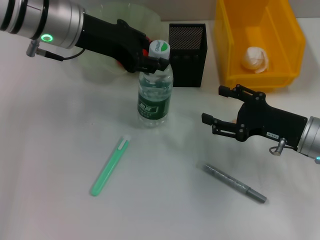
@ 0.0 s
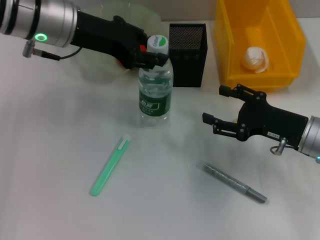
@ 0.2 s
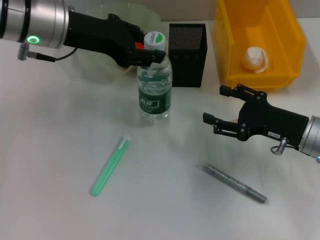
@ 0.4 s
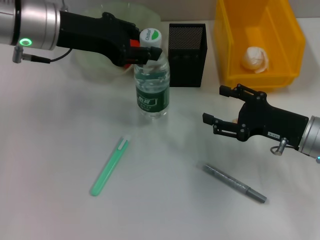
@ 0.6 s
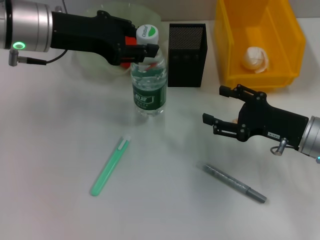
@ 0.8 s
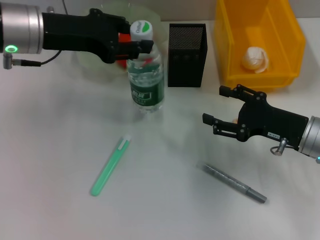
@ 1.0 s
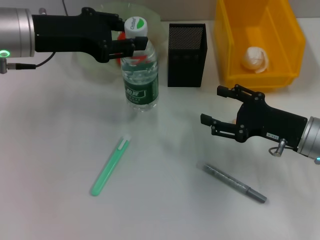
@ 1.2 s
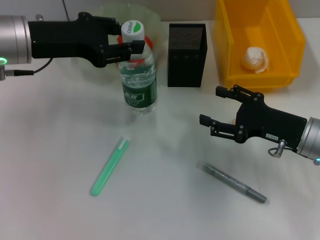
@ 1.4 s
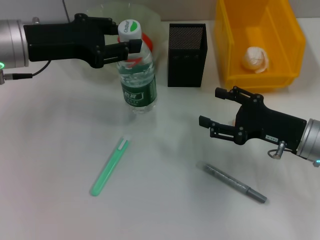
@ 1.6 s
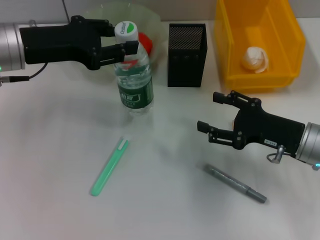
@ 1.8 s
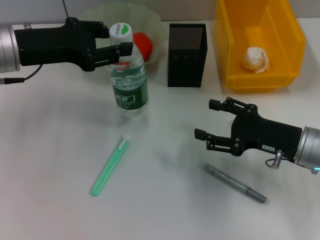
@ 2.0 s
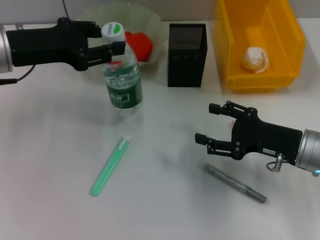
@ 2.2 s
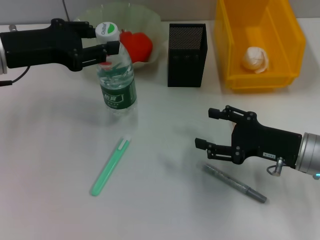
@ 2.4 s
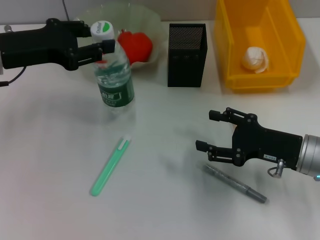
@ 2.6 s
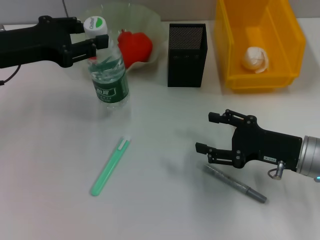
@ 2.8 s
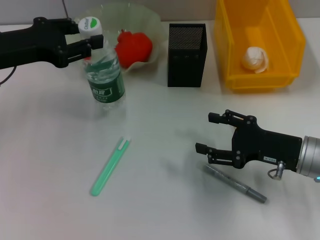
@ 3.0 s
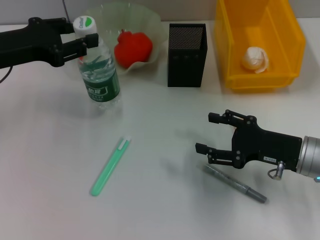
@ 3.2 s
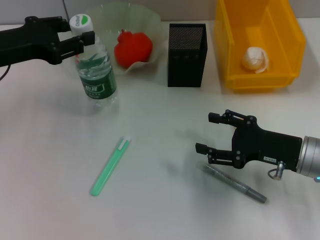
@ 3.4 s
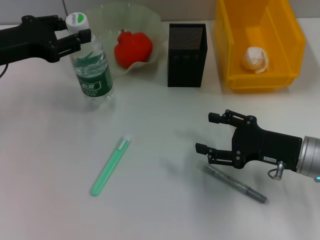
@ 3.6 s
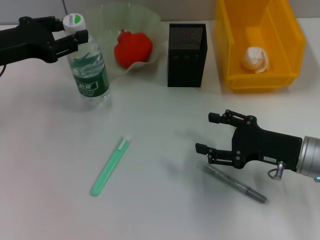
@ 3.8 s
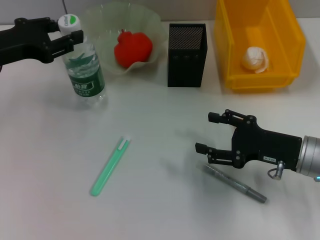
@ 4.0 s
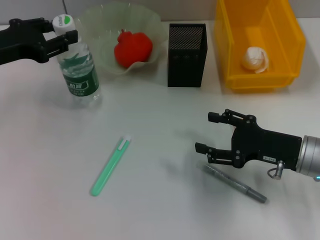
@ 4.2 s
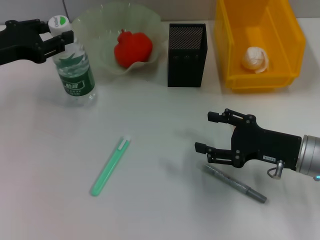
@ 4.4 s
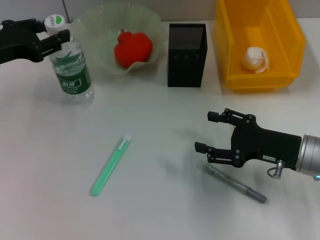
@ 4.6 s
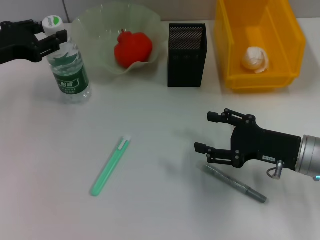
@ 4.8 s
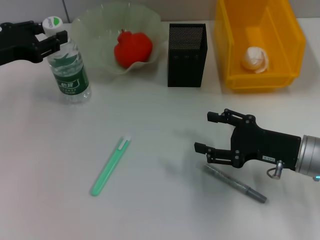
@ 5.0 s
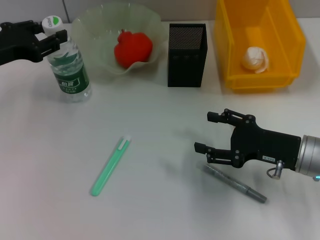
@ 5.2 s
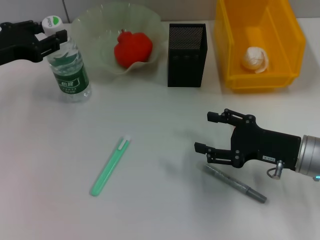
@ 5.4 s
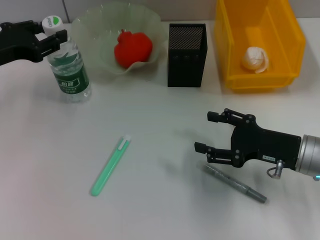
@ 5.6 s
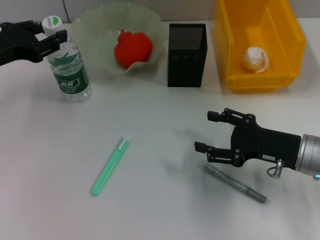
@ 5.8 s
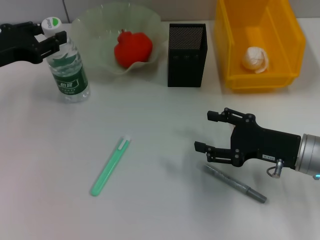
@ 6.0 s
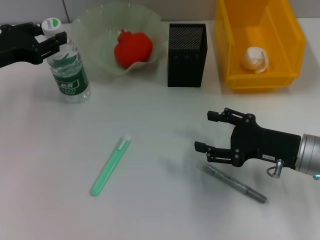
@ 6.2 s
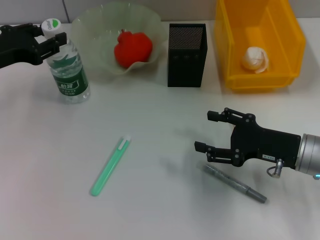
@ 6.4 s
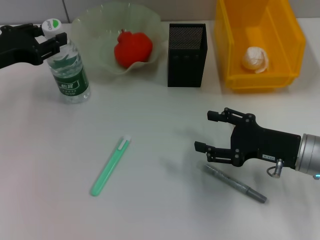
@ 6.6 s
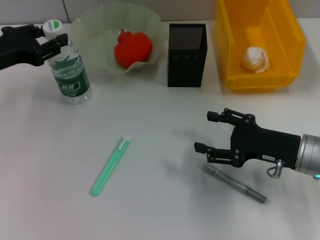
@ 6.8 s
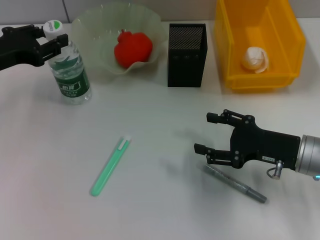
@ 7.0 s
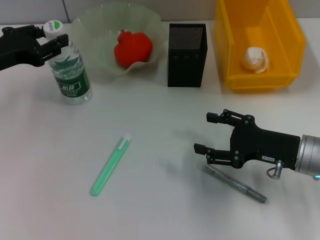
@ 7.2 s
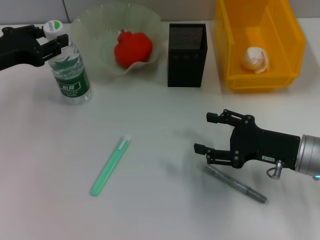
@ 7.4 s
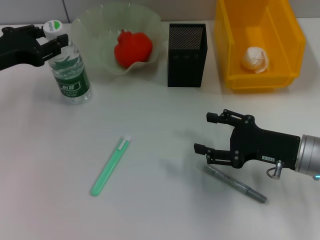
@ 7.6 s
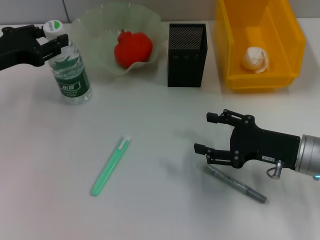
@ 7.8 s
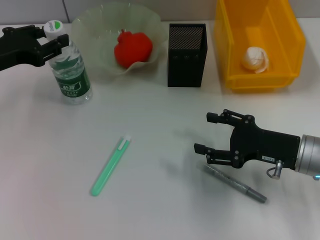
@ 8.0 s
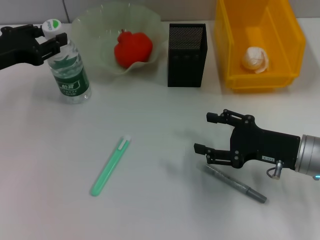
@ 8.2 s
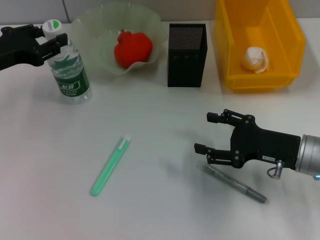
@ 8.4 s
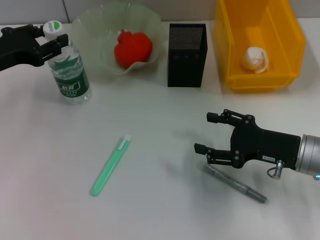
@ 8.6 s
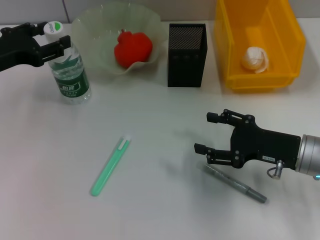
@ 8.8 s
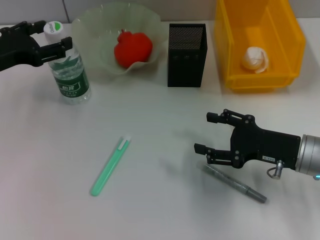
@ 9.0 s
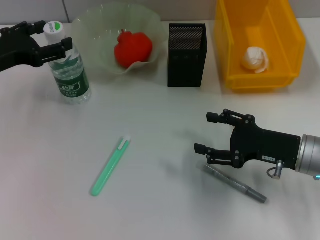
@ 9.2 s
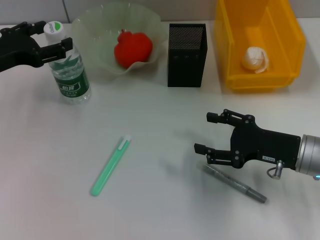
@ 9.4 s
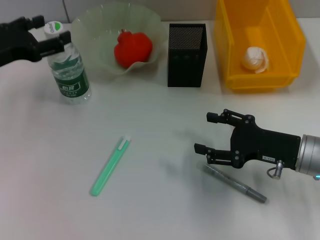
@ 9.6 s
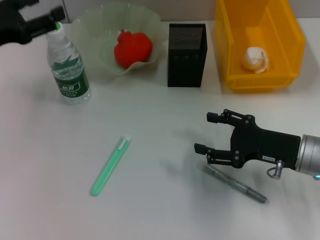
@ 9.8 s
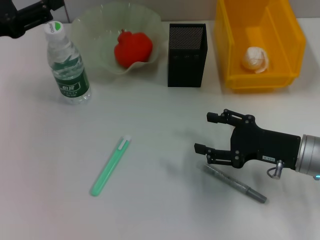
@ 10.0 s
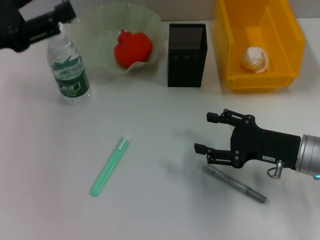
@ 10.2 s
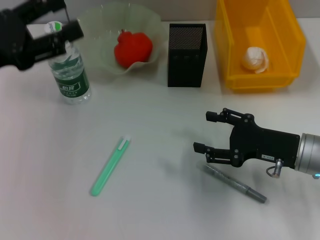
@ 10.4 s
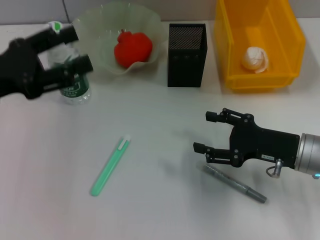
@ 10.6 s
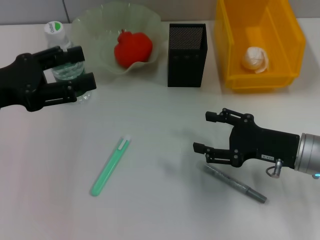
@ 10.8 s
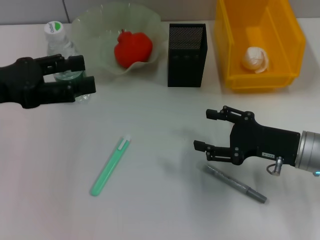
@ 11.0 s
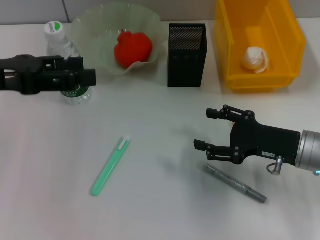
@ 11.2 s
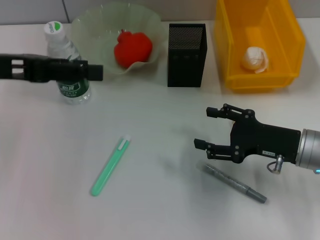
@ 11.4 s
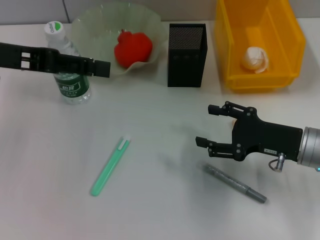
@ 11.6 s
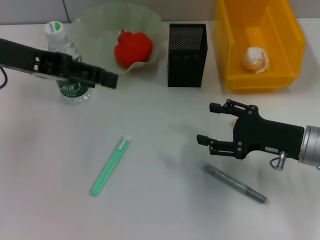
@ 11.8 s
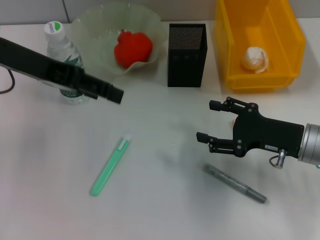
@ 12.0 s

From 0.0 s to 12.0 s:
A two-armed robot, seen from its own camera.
Step, from 0.0 s to 10.0 s: Place the water bottle on the table with the left hand.
From 0.0 s to 1.6 s: The left gripper travels to the left by approximately 5 cm.
From 1.6 s to 3.0 s: The left gripper ends up about 5 cm from where it was.
From 3.0 s to 4.4 s: The grippers make only small movements.
From 4.4 s to 6.0 s: Both grippers stay about where they are.
From 6.0 s to 7.6 s: Neither gripper changes place.
From 7.6 s to 9.0 s: The left gripper opens up.
From 9.0 s to 10.4 s: The left gripper shifts approximately 5 cm backward.
From 10.4 s to 12.0 s: The left gripper is displaced upward and to the right by roughly 10 cm.

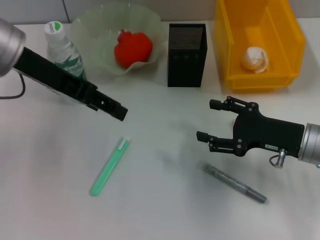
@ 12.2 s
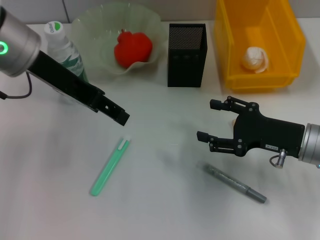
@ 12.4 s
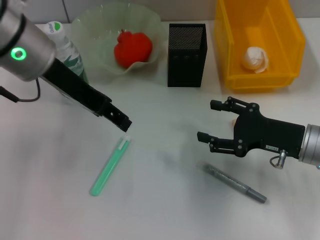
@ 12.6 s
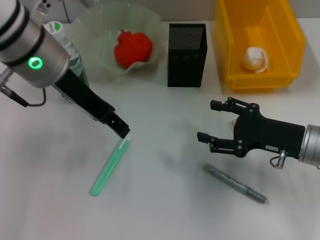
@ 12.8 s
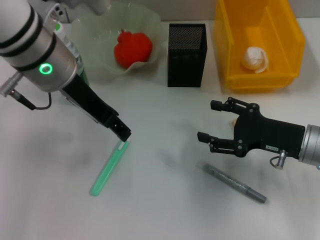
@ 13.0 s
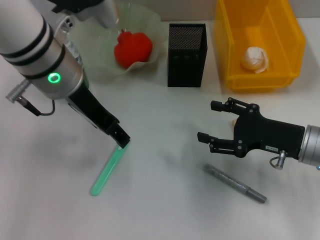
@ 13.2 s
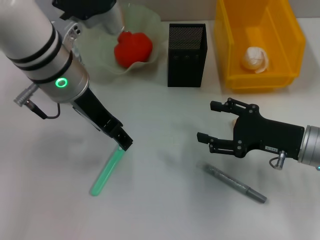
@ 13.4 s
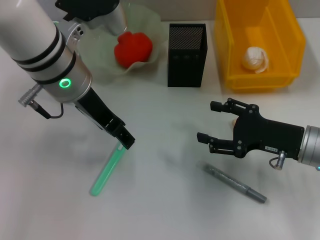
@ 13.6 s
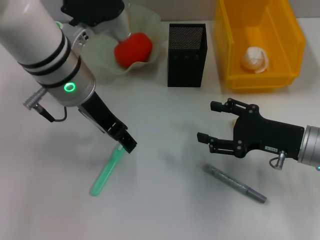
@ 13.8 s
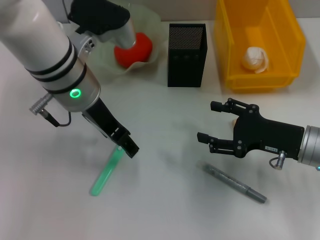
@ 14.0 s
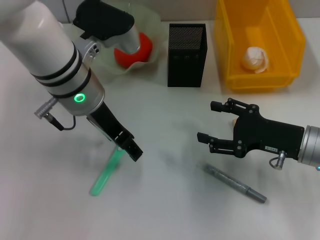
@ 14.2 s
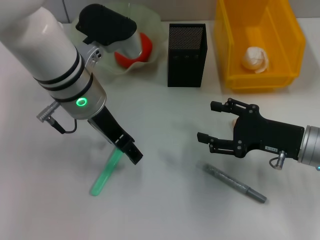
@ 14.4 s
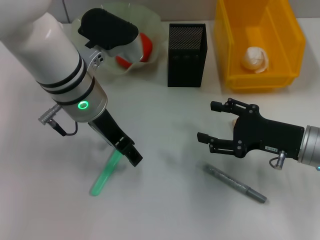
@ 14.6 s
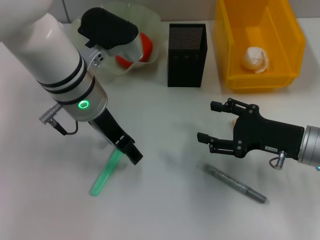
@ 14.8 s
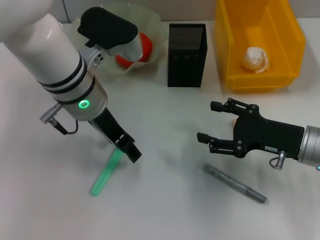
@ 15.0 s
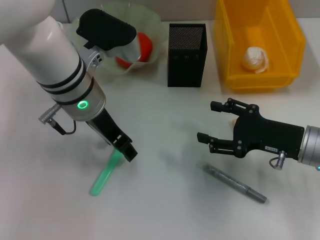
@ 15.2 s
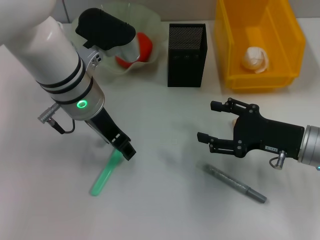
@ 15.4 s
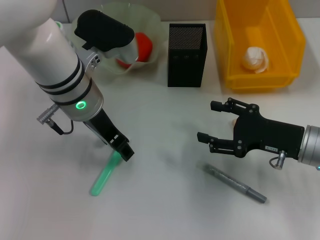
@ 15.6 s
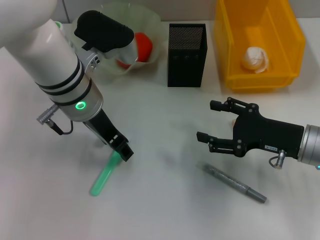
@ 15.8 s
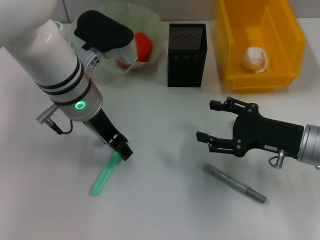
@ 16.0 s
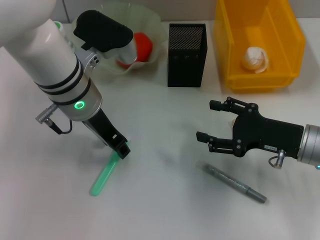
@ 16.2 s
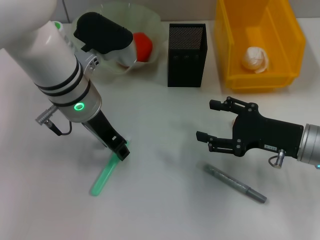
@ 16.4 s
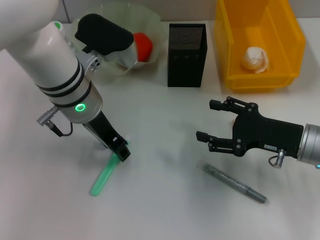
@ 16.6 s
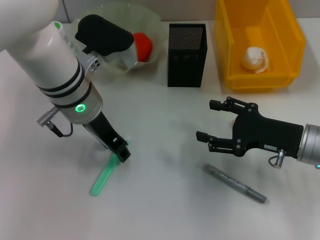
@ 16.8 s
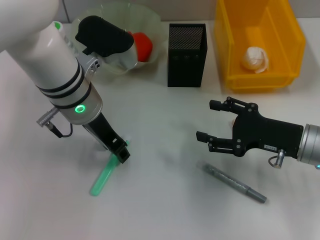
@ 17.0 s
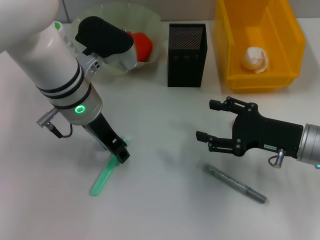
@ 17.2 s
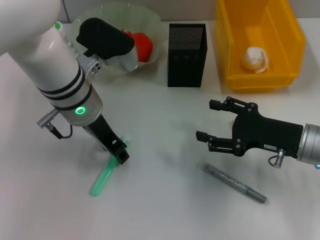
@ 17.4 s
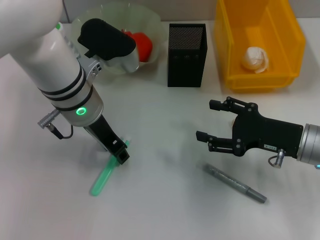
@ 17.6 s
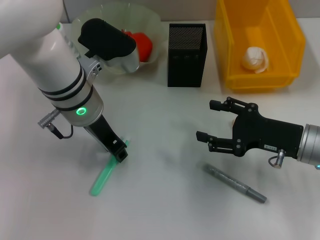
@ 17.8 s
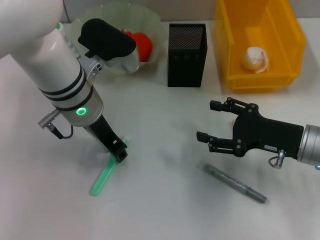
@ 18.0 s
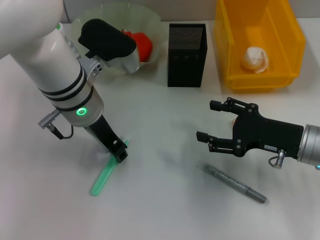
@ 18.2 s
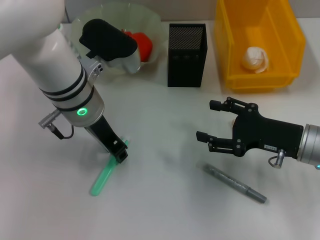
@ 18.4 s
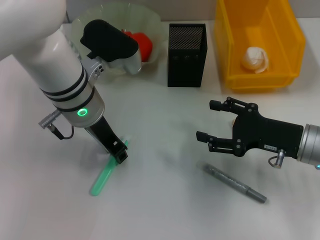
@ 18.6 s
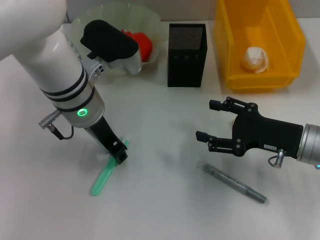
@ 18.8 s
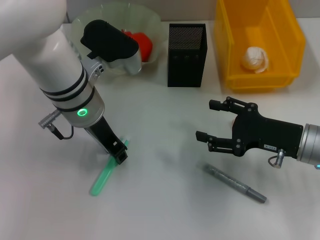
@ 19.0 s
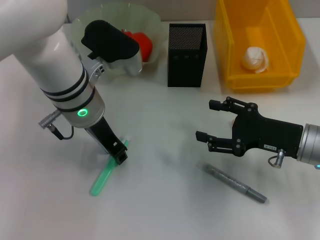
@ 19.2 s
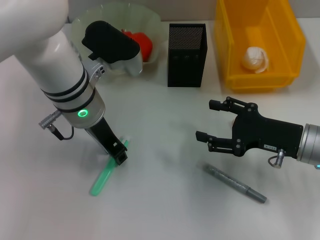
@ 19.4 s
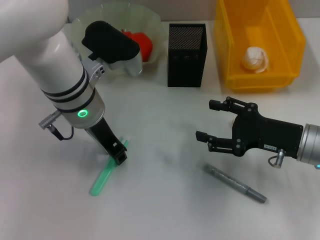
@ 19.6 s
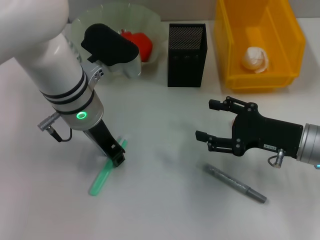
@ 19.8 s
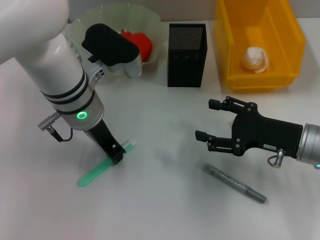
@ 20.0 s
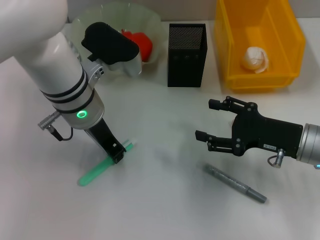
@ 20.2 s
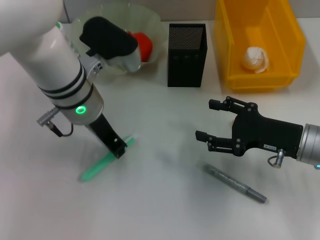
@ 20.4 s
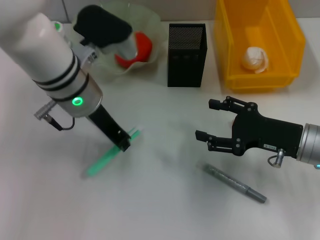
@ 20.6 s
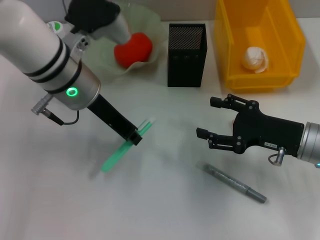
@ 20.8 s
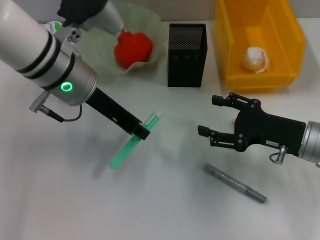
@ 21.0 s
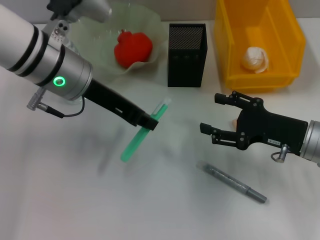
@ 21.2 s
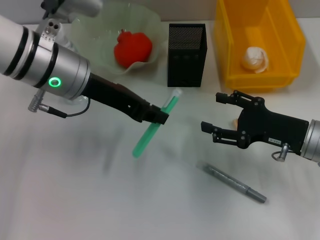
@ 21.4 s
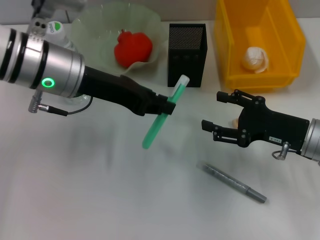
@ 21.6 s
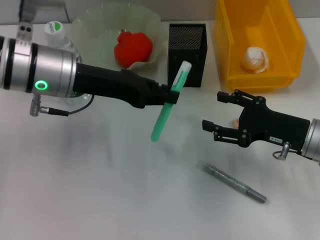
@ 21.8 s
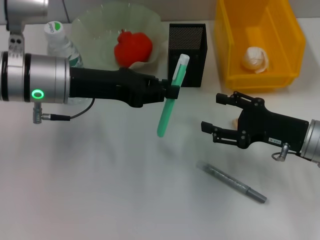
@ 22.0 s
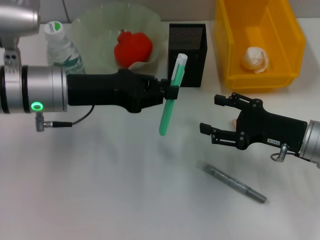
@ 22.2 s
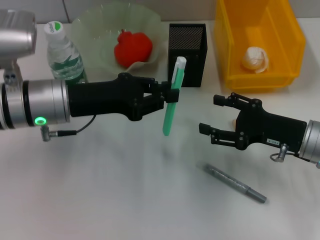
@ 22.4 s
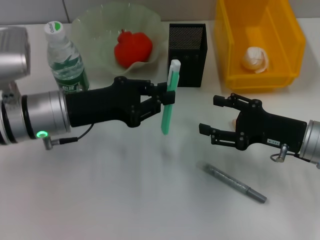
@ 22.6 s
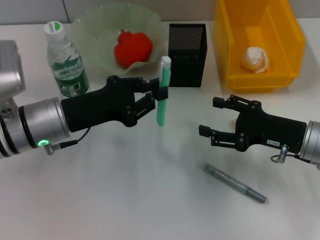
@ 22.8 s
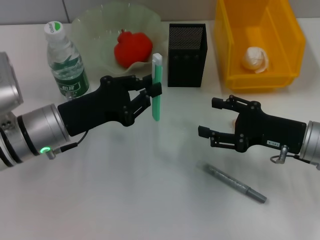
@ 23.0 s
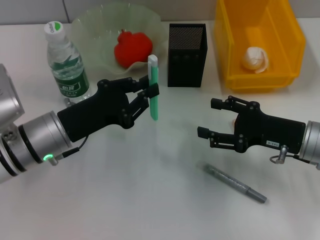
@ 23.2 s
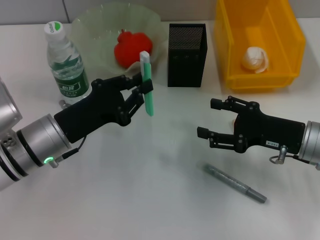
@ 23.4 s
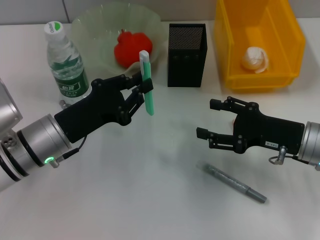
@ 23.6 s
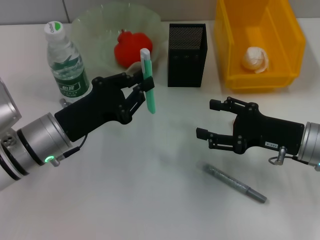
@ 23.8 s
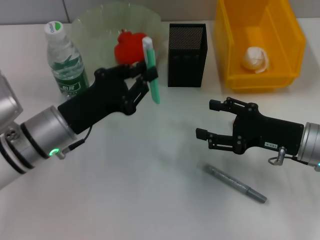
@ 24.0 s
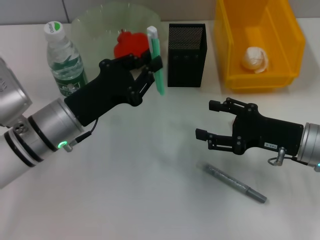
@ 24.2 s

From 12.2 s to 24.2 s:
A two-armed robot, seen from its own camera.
Step, from 12.2 s to 19.6 s: Grab the blue utility knife with the left hand.
From 12.2 s to 13.8 s: The left gripper goes roughly 10 cm to the right and downward.
From 13.8 s to 15.2 s: The grippers make only small movements.
From 15.2 s to 16.6 s: The left gripper closes.
From 16.6 s to 19.8 s: Both grippers stay put.
From 19.8 s to 21.2 s: The left gripper changes place by about 5 cm.
From 21.2 s to 22.6 s: The left gripper travels downward by roughly 10 cm.
